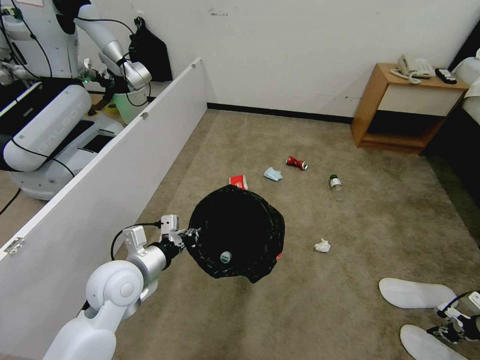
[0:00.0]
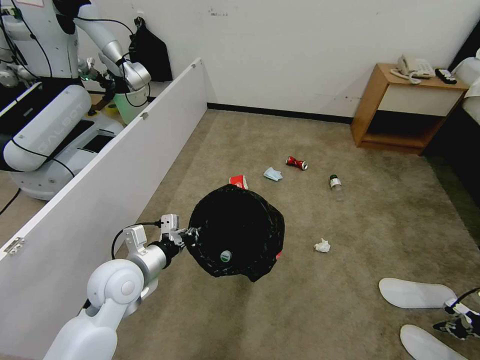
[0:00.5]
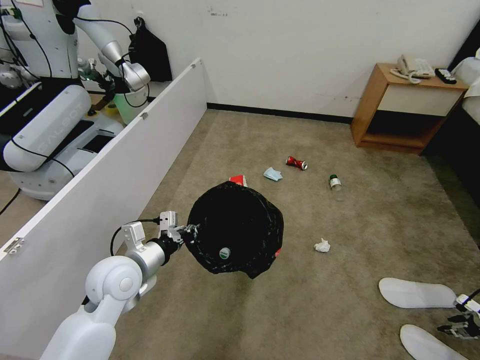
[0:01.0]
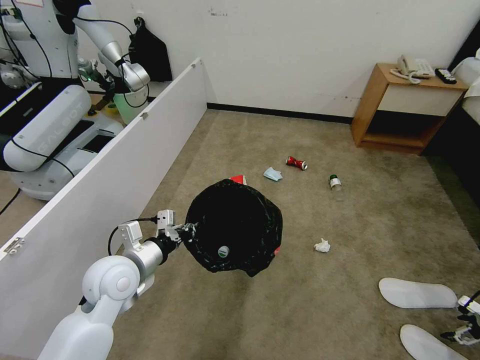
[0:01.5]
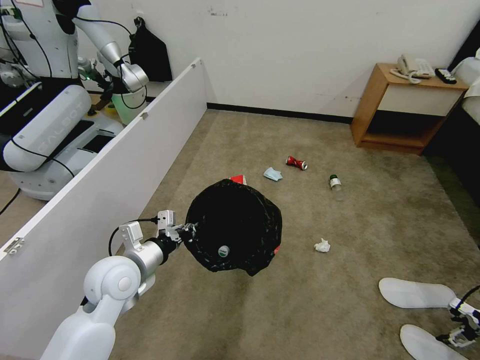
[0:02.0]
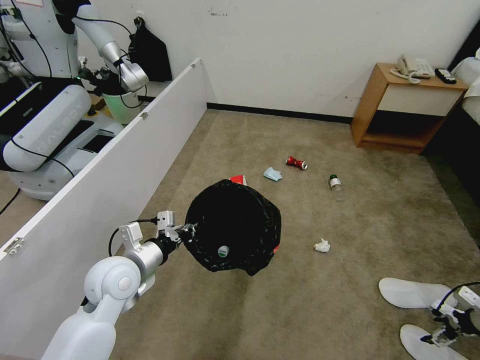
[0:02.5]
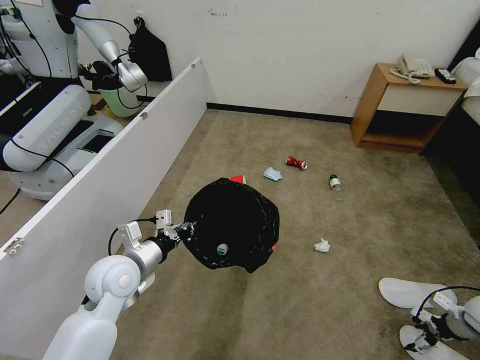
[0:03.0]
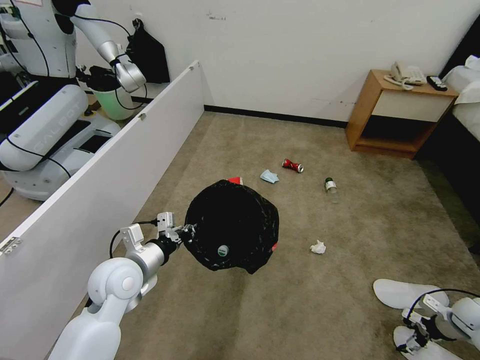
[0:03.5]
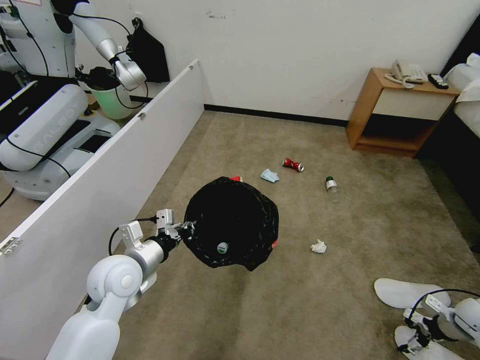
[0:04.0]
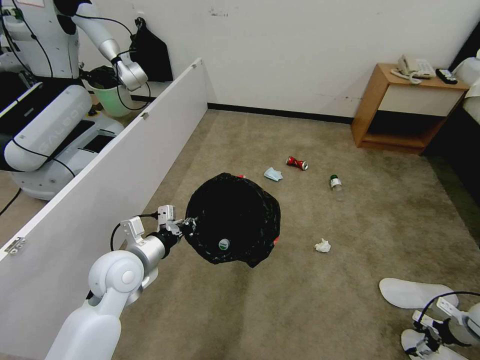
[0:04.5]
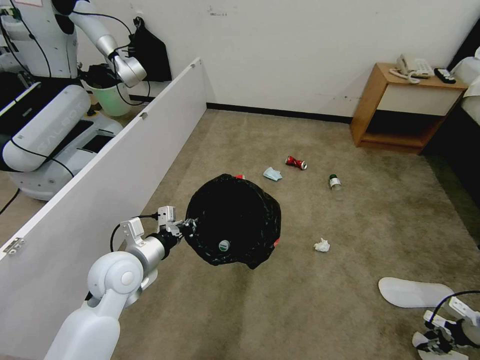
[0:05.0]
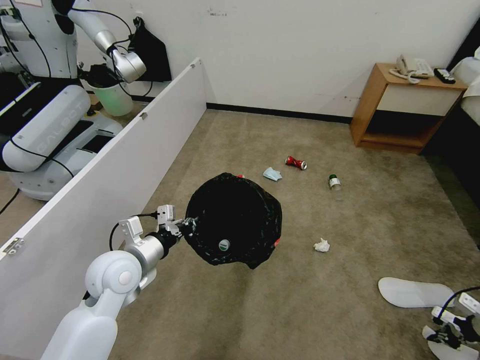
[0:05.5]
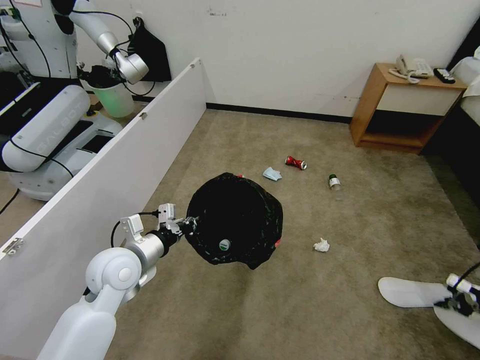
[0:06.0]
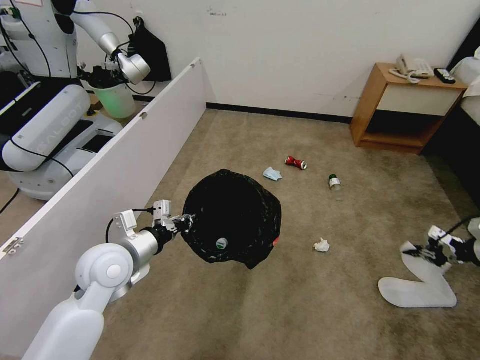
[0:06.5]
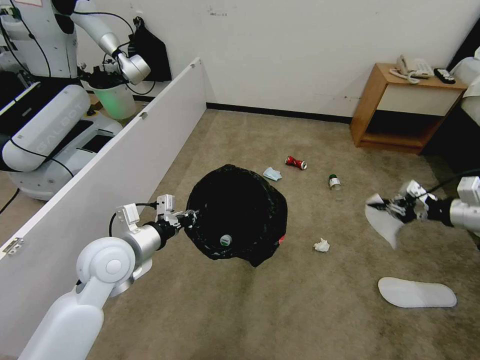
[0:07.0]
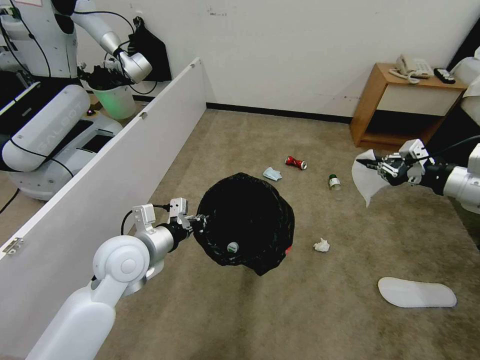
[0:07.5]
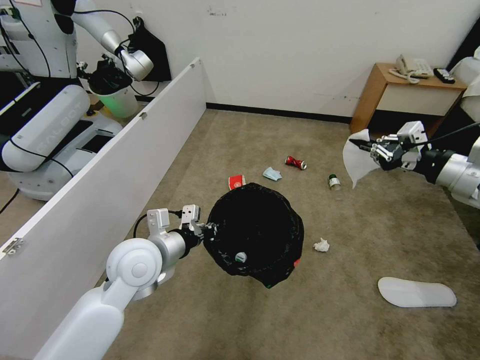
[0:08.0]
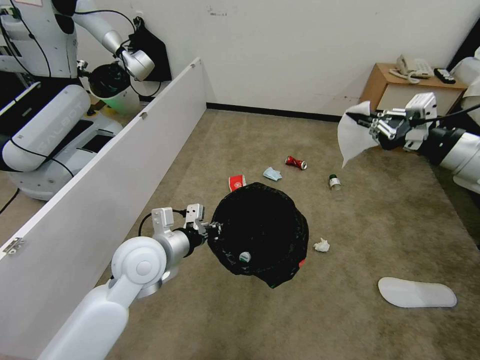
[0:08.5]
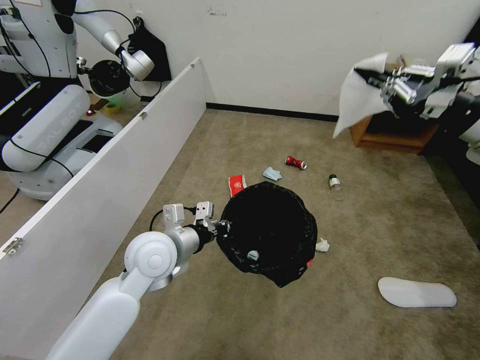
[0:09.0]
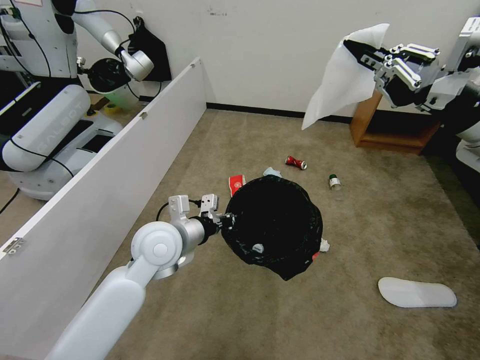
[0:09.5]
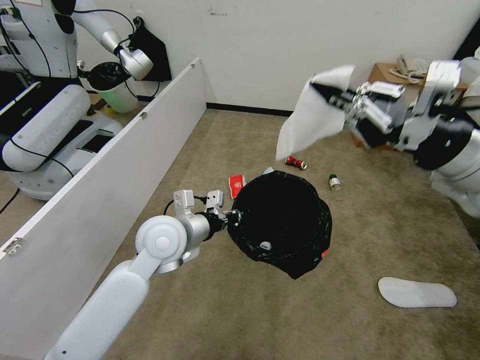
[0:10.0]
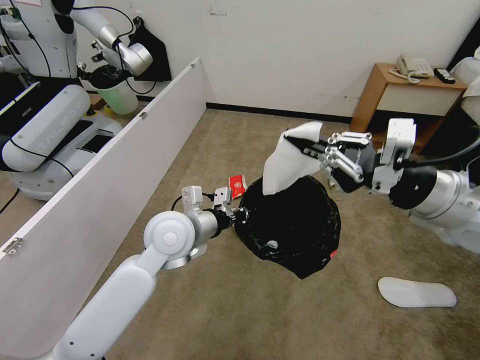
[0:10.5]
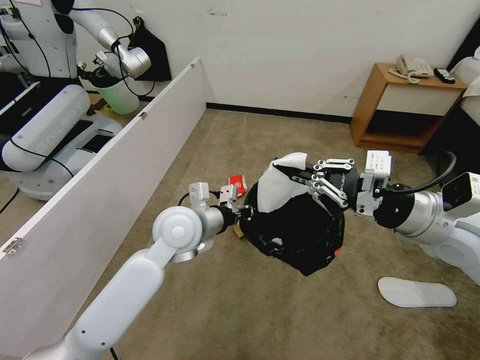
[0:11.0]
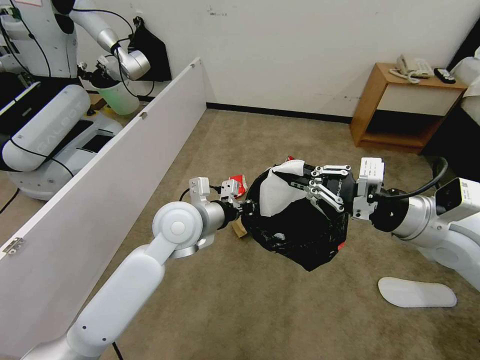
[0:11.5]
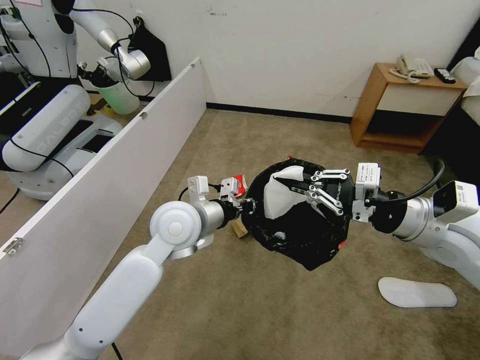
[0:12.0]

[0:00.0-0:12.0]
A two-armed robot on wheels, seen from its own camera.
Task of the whole recording: Pick up the trash bin and place the garbage on the floor into it.
0:00.0 to 0:02.0: The right gripper opens up.
0:02.0 to 0:04.0: The right gripper moves downward and to the left, about 10 cm.
0:04.0 to 0:06.0: The right gripper is displaced upward by some 15 cm, and closes its fingers.
0:06.0 to 0:08.0: The left gripper shifts approximately 5 cm to the right. Meanwhile the right gripper goes about 35 cm upward and to the left.
0:08.0 to 0:10.0: The right gripper shifts roughly 10 cm to the left and upward. The left gripper shifts by some 5 cm.
0:10.0 to 0:12.0: The right gripper goes roughly 10 cm downward.

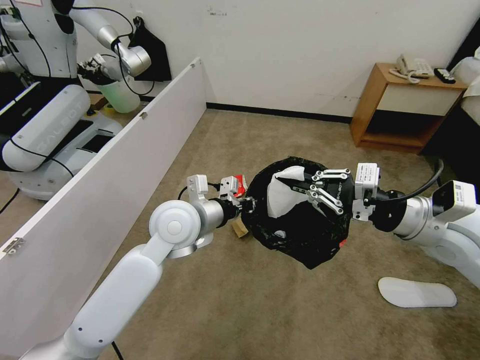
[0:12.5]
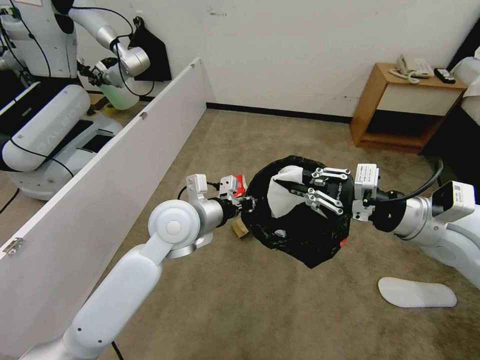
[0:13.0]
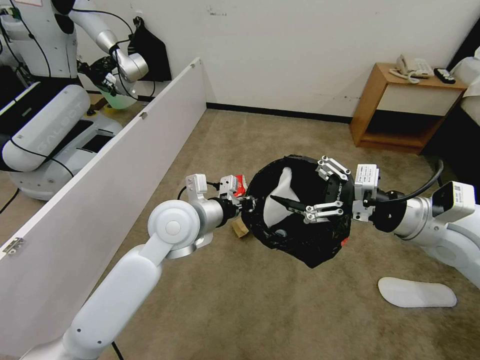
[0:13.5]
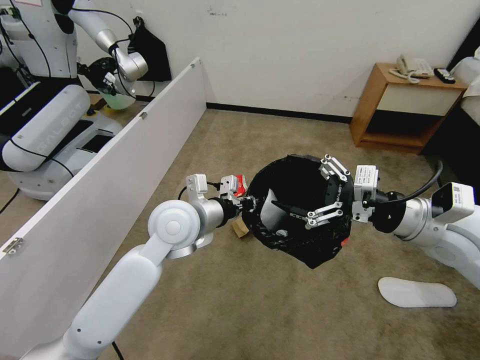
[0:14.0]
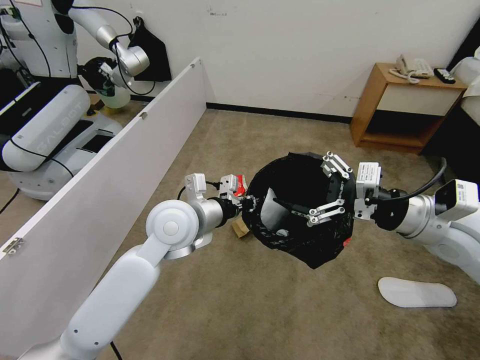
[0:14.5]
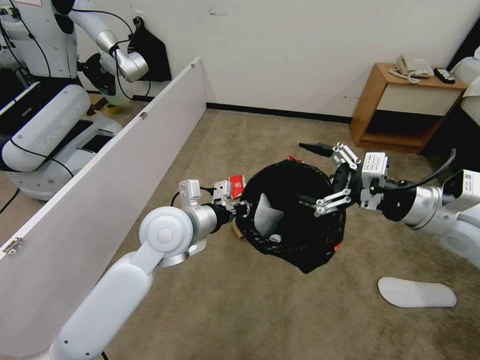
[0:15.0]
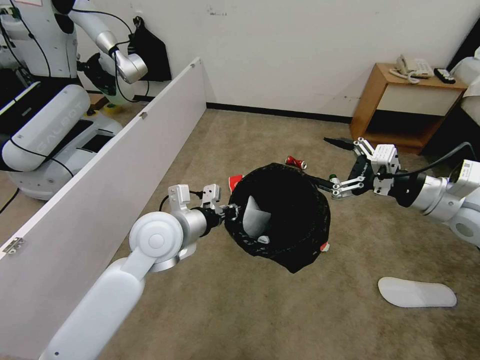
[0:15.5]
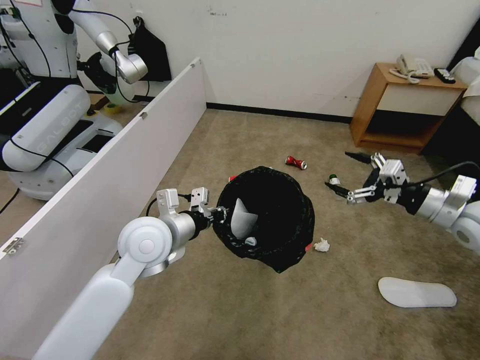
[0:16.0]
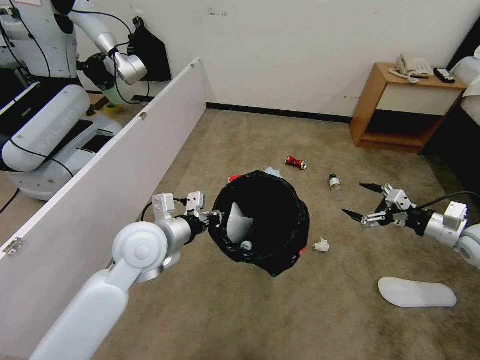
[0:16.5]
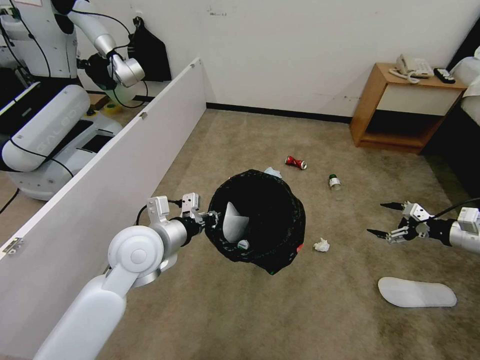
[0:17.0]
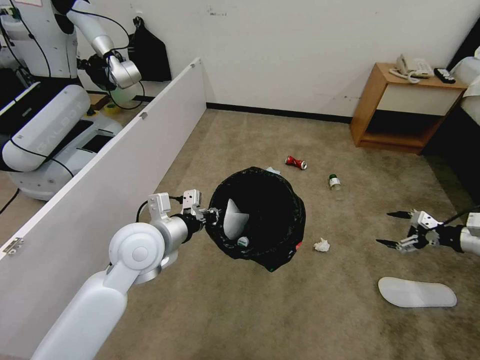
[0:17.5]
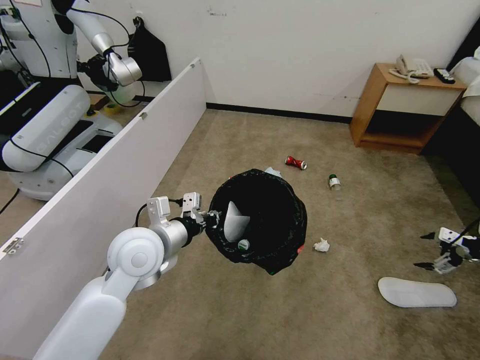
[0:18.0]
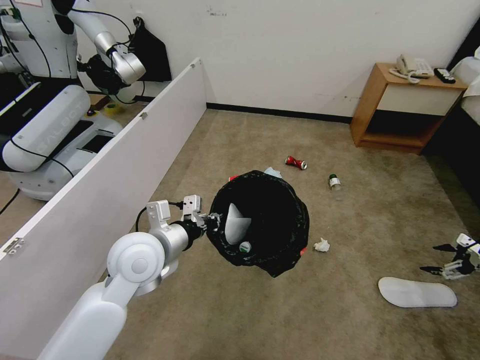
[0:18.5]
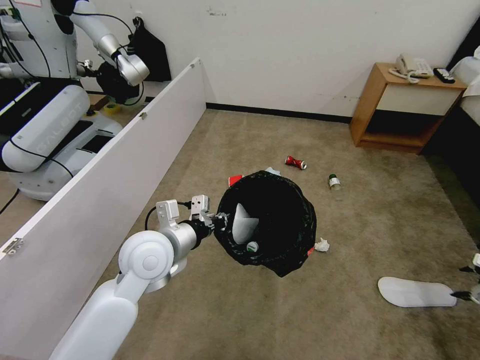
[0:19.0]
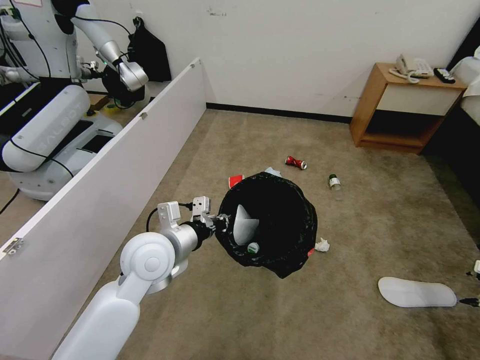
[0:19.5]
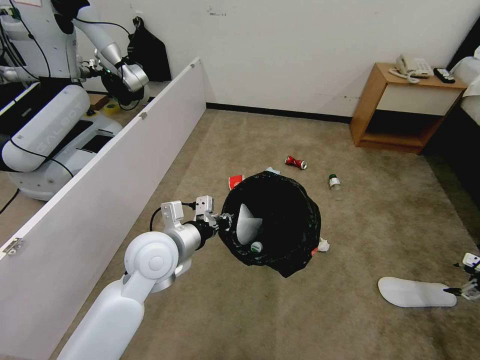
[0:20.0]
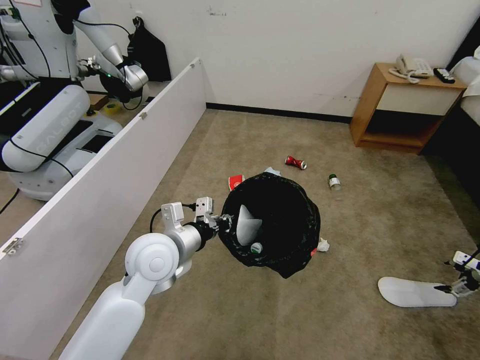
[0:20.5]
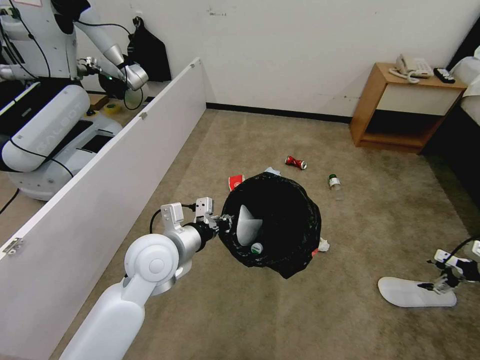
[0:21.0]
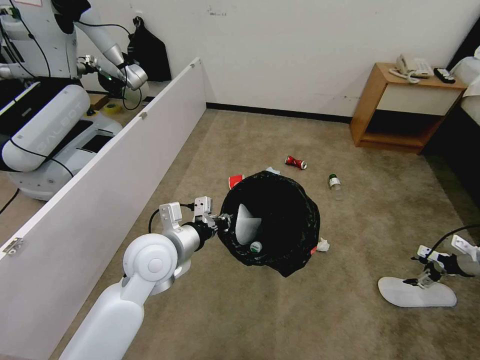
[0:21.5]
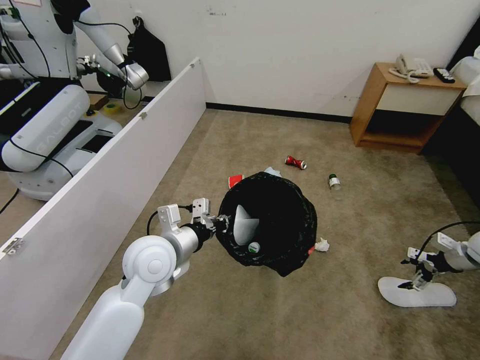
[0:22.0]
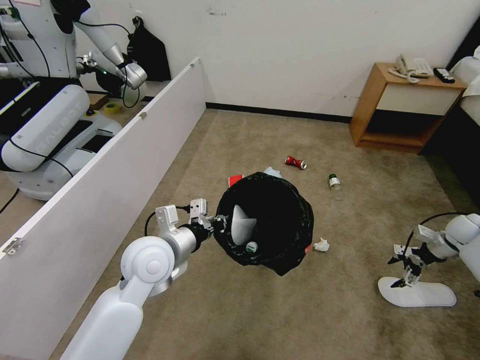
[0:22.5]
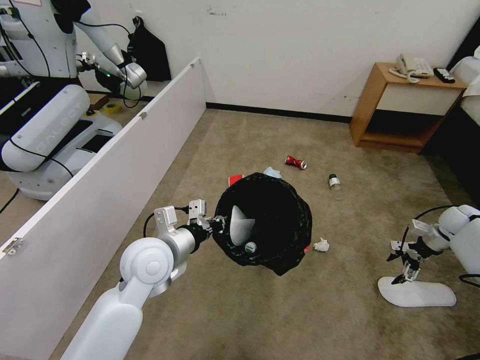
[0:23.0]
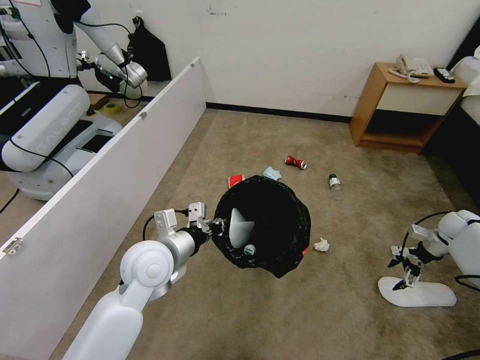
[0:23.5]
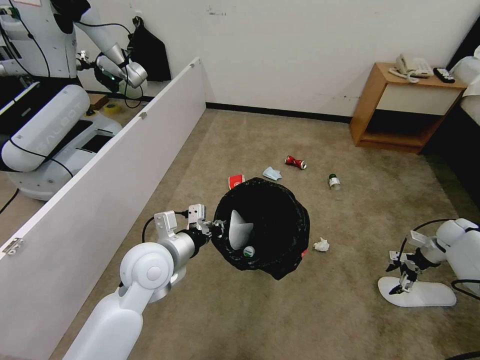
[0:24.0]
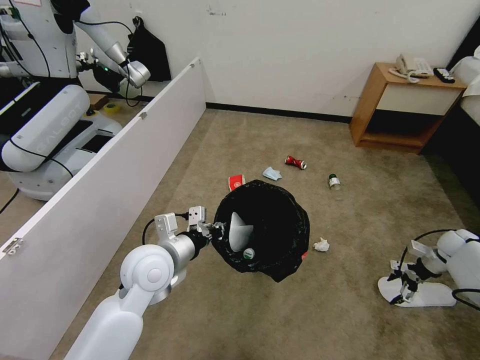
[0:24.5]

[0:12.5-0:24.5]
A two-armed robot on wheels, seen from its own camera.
Task of the whole recording: Pick up the trash bin and place the garbage on the floor into it.
0:12.5 to 0:14.5: The right gripper opens up.
0:14.5 to 0:16.5: The left gripper shifts about 5 cm to the left, while the right gripper is displaced to the right and downward by roughly 20 cm.
0:16.5 to 0:18.5: The right gripper moves to the right, roughly 20 cm.
0:20.5 to 0:22.5: The right gripper goes approximately 15 cm forward, to the left and downward.
0:22.5 to 0:24.5: The right gripper goes about 5 cm downward.

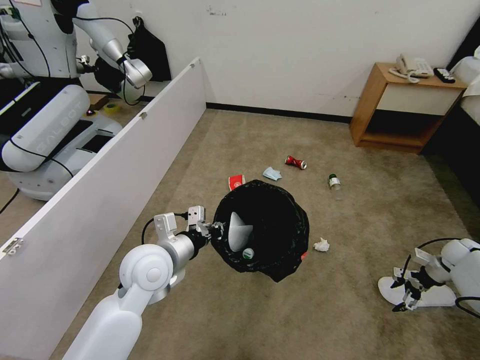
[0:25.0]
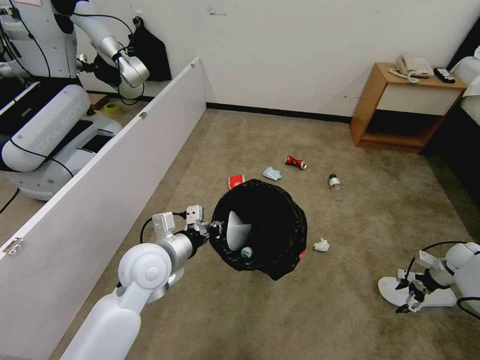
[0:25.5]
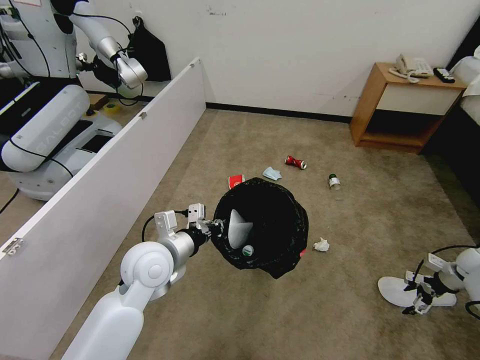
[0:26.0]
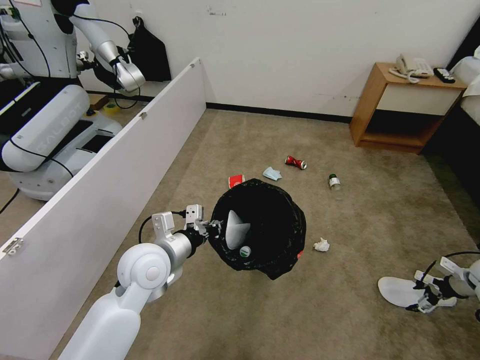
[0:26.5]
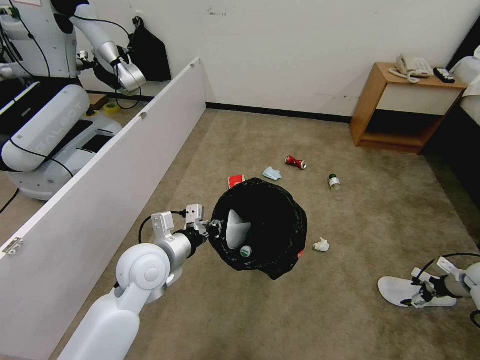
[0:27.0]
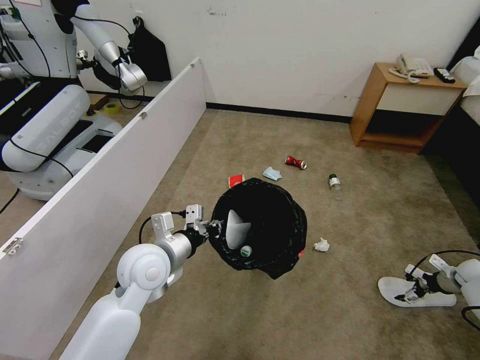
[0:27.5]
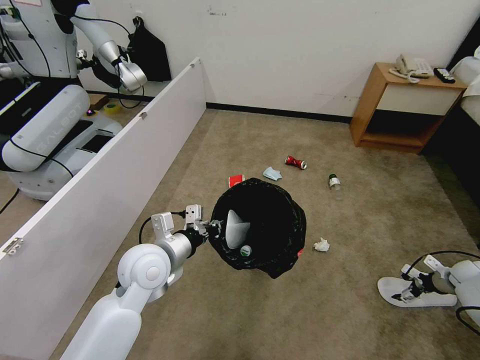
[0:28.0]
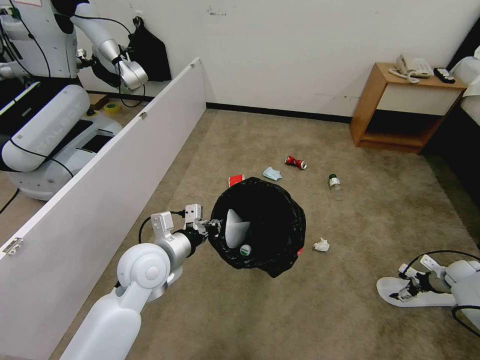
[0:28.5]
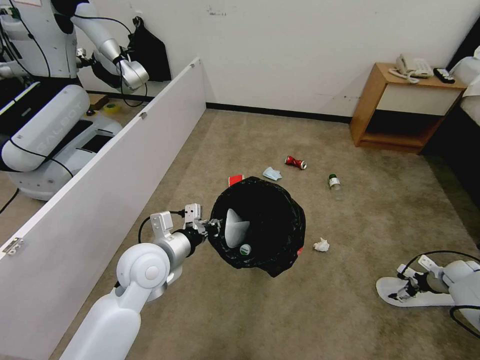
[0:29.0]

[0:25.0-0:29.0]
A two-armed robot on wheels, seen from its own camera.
Task of the whole recording: Pick up the trash bin and place the garbage on the floor into it.
0:25.0 to 0:27.0: The right gripper goes approximately 5 cm backward.
0:27.0 to 0:29.0: There are only small adjustments of the grippers.
